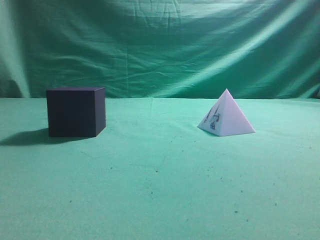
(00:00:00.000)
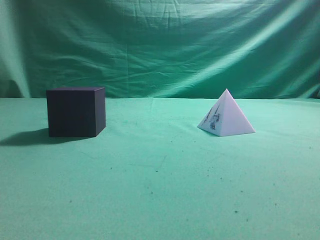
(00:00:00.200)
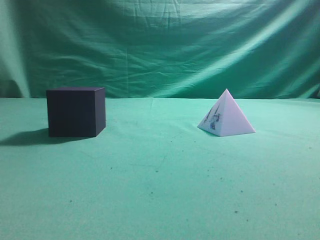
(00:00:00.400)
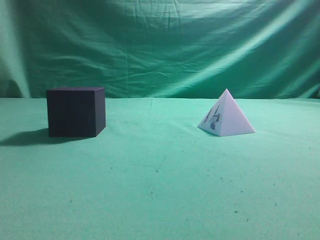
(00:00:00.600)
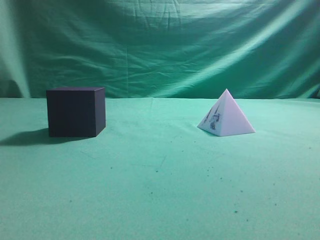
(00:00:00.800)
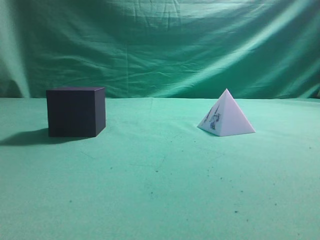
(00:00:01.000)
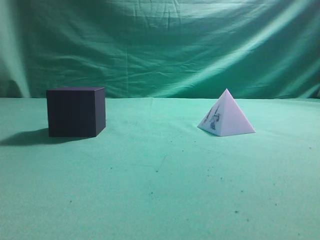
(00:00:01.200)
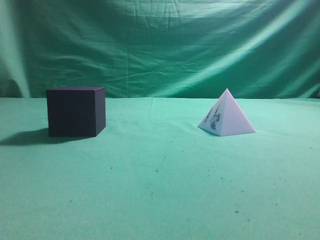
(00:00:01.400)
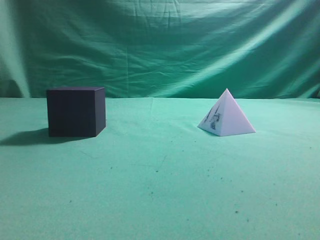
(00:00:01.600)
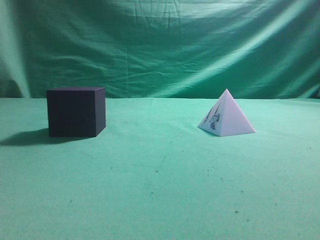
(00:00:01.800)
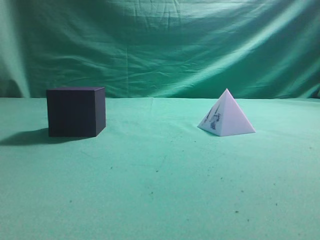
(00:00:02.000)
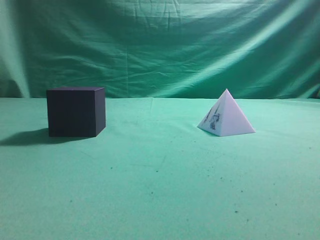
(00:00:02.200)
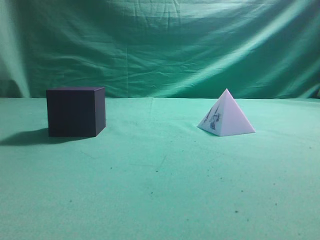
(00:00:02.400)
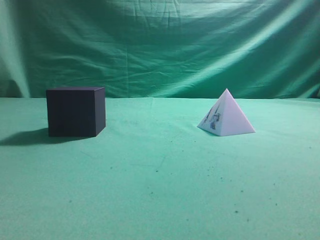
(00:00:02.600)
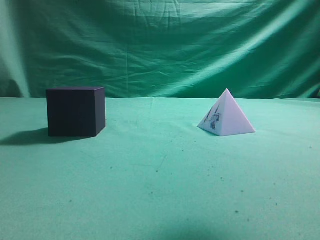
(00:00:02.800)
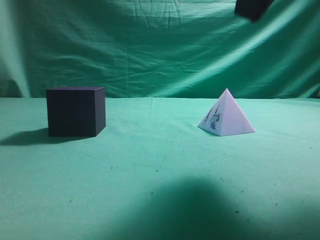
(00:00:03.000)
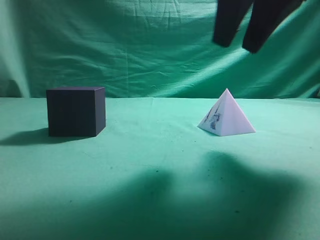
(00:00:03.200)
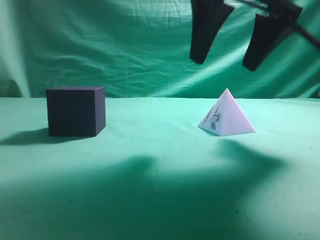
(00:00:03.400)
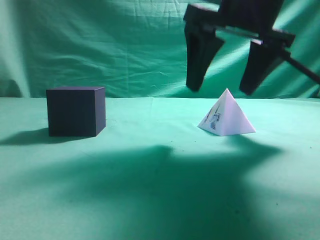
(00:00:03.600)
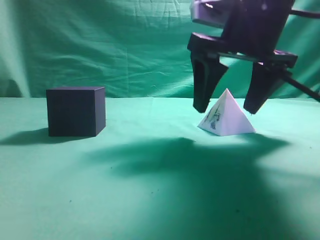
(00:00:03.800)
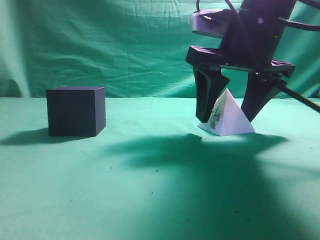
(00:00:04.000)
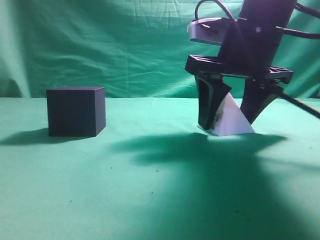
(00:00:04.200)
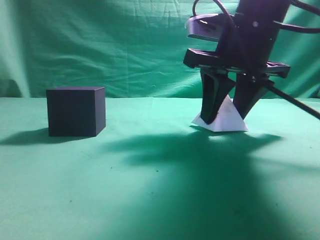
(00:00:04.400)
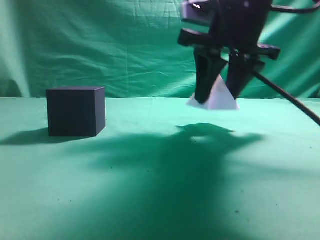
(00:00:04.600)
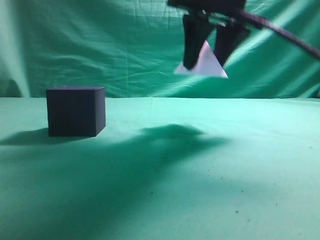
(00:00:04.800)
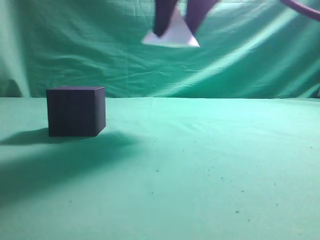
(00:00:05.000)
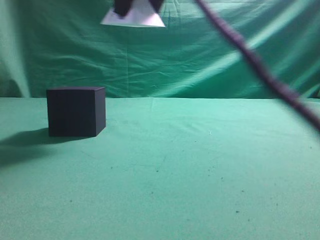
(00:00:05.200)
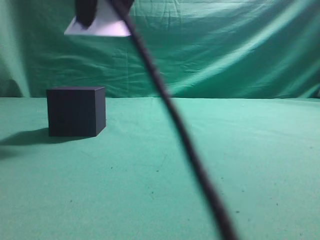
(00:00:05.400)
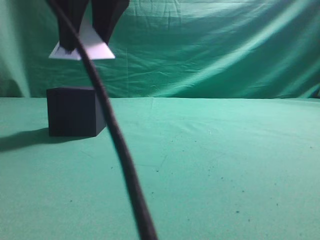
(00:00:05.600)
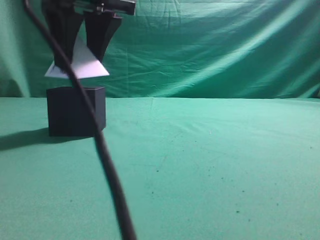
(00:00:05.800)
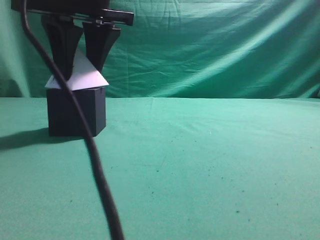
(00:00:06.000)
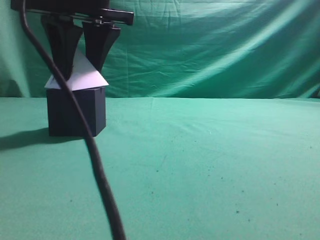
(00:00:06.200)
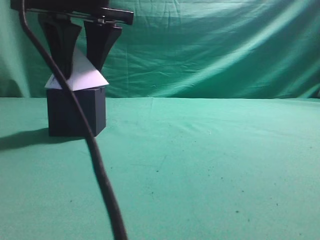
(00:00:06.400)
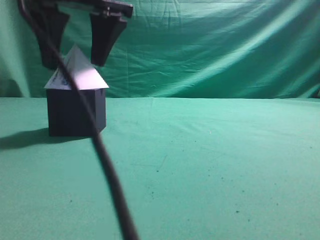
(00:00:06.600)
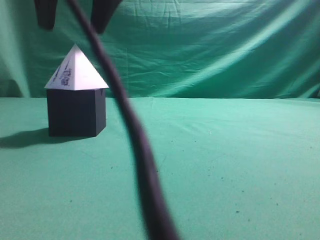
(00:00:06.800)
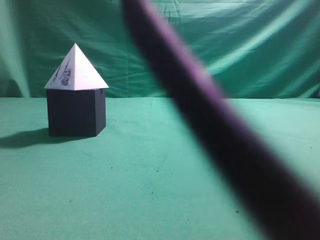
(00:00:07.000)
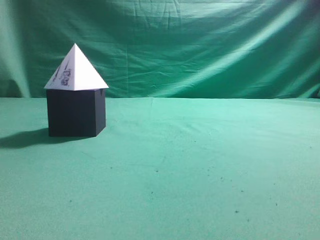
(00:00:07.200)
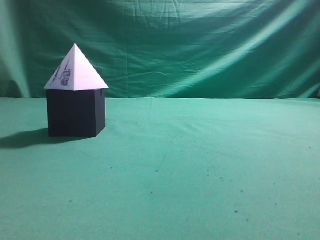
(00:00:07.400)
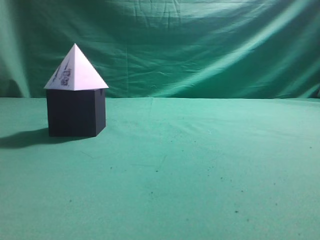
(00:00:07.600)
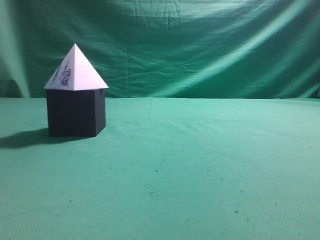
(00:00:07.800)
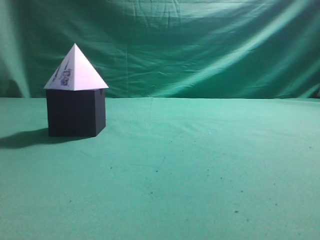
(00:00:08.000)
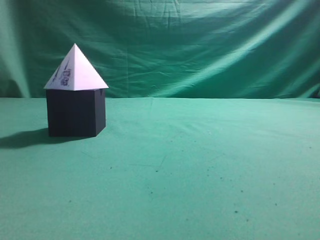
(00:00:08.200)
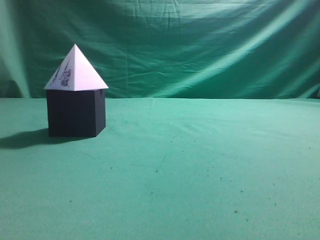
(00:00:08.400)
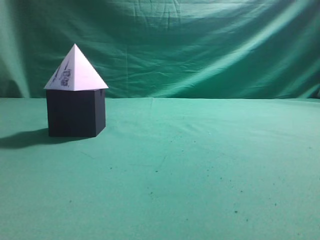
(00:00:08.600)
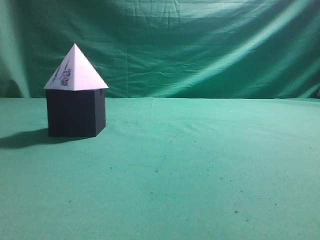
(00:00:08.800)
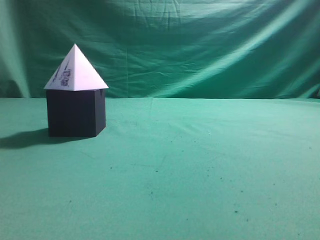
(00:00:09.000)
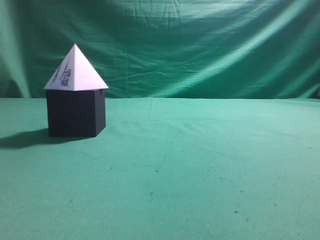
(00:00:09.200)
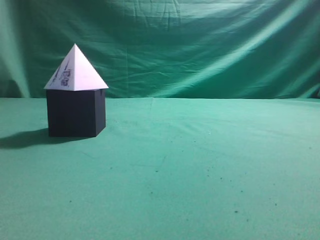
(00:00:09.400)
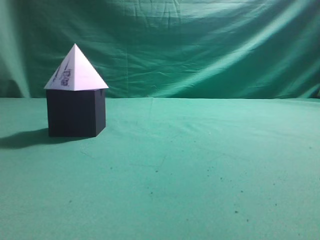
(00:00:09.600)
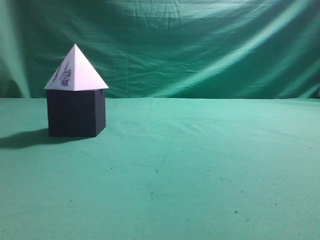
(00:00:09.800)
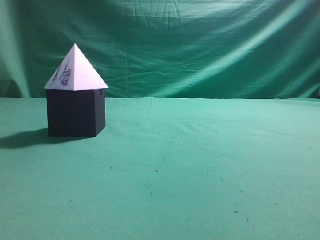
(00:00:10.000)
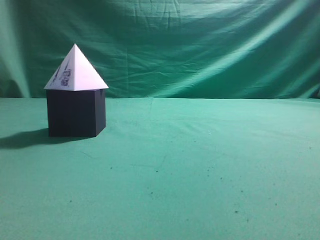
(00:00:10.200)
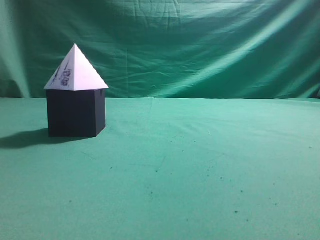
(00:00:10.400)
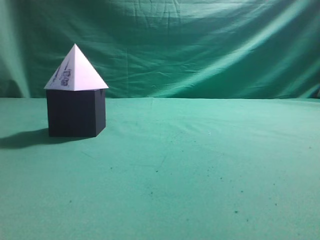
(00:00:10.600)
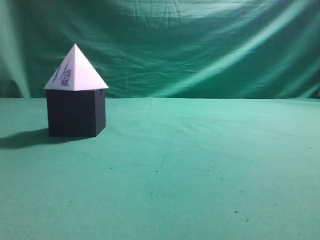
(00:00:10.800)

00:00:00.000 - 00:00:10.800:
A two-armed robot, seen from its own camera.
Task of the whole recording: pick up the square pyramid from the table and place it on the cube block.
Step, 00:00:00.000 - 00:00:04.600: Grasp the triangular block.
Step, 00:00:04.800 - 00:00:06.800: Place the block onto the cube-shaped block.
00:00:01.600 - 00:00:03.000: The right gripper goes approximately 25 cm forward and to the left.
00:00:03.000 - 00:00:04.600: The right gripper moves downward and forward, approximately 15 cm, and opens.
00:00:04.600 - 00:00:06.200: The right gripper goes some 20 cm to the left.
00:00:06.200 - 00:00:07.800: The right gripper moves upward, to the right and backward, roughly 25 cm, and closes up.
